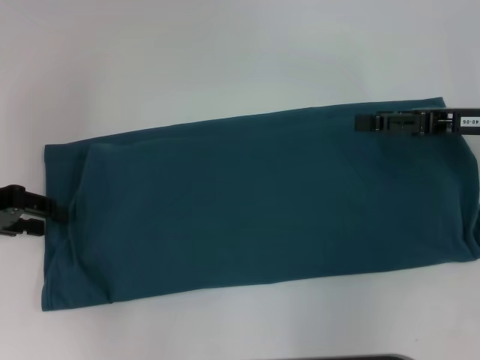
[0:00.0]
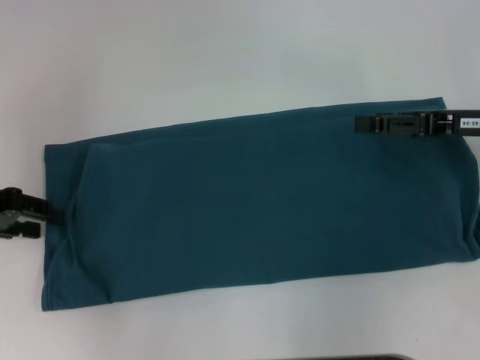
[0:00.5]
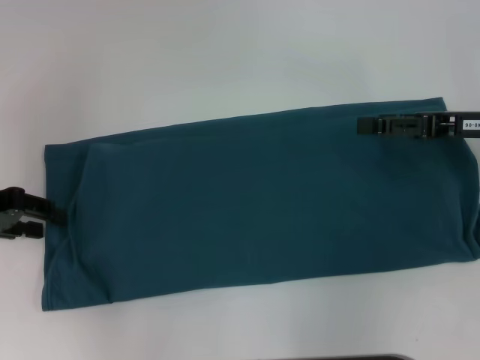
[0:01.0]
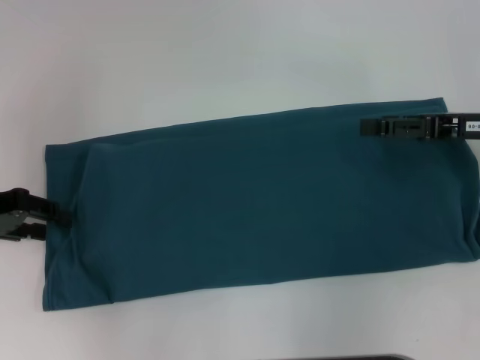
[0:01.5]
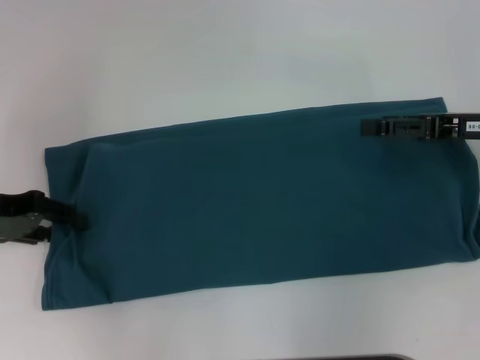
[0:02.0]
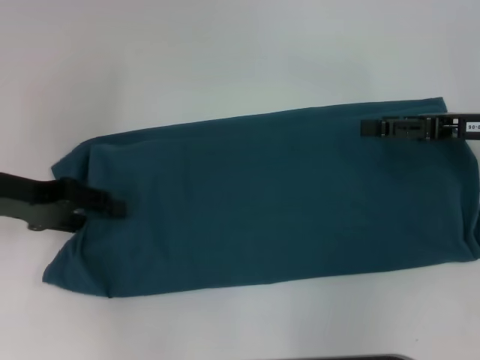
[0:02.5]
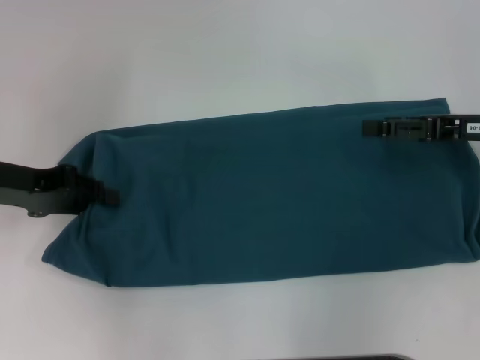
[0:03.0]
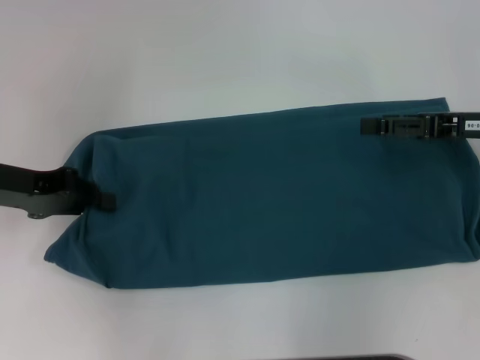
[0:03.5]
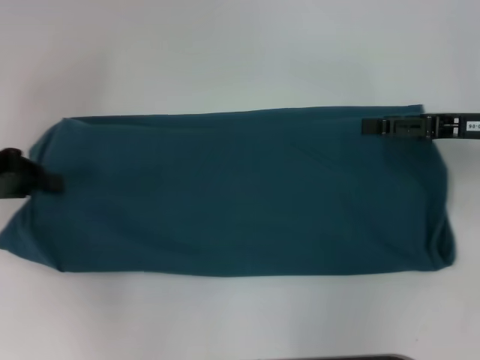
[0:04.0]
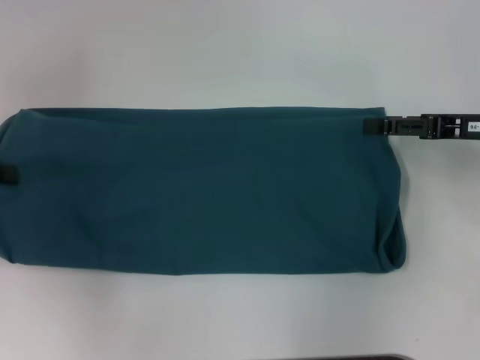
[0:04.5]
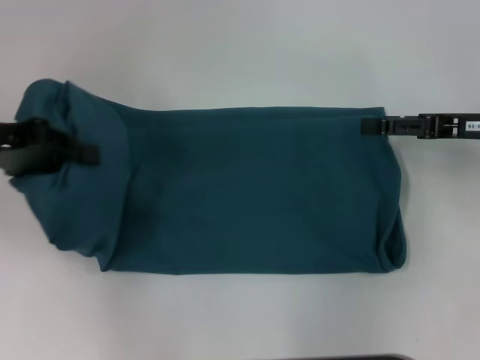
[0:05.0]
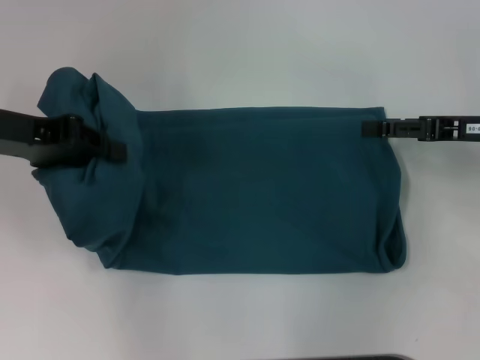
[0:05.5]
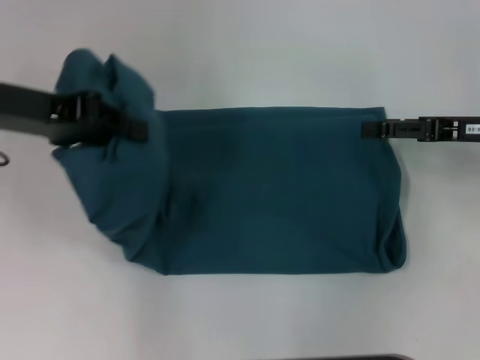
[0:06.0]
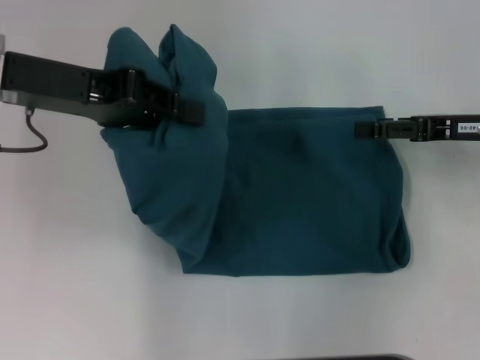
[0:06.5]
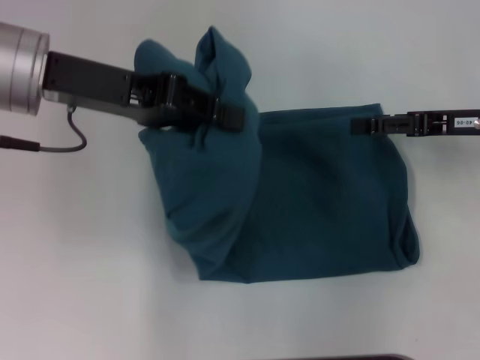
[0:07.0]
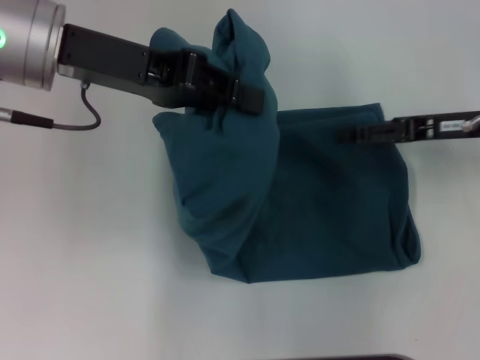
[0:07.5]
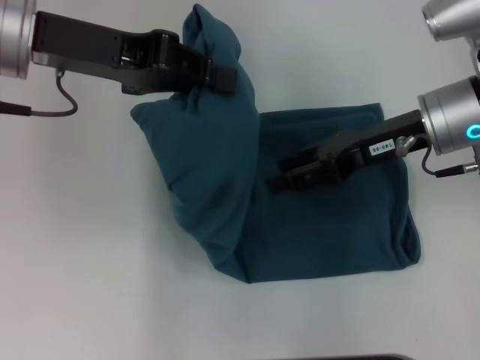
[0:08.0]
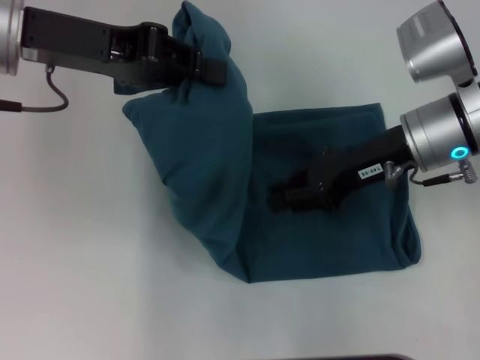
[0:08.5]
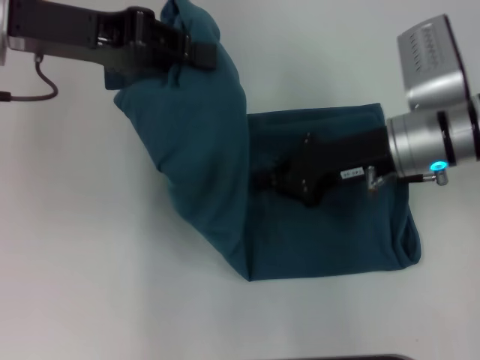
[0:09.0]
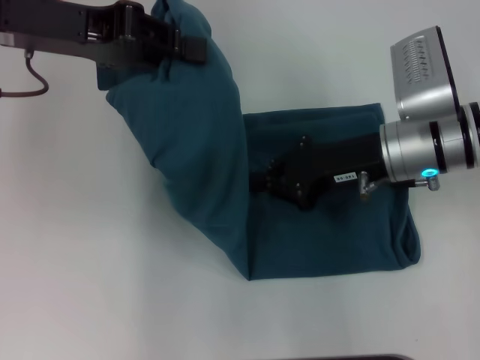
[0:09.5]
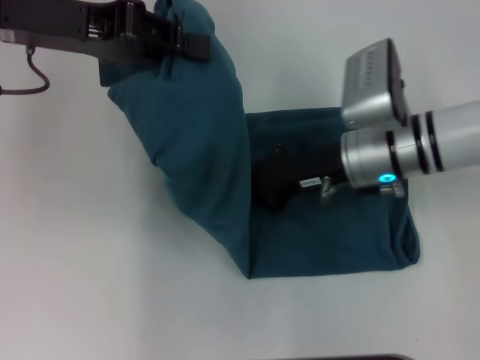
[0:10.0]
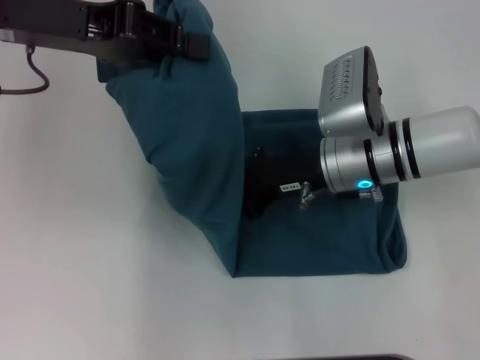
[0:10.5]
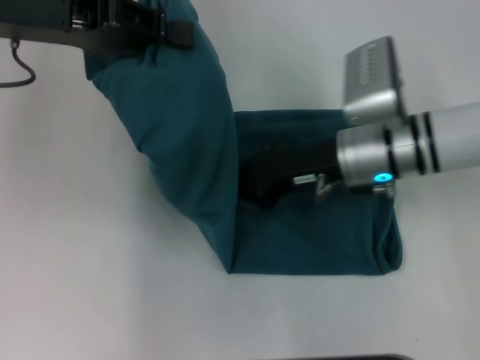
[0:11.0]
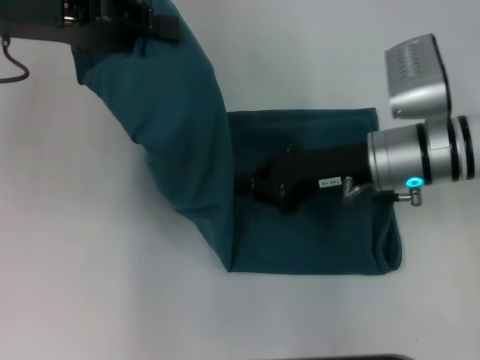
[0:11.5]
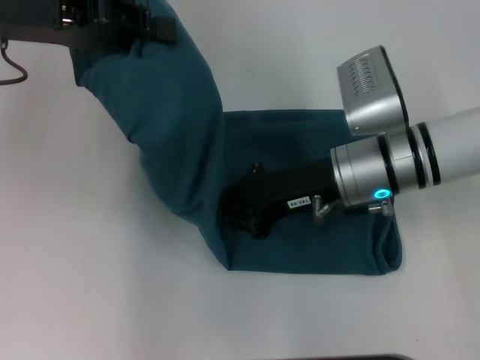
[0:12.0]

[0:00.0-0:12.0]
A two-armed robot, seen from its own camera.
0:00.0 to 0:02.0: The grippers stay close to where they were, moving slightly.
0:02.0 to 0:04.0: The left gripper closes.
0:04.0 to 0:06.0: The left gripper heads to the right and upward, covering some 10 cm.
0:06.0 to 0:08.0: The right gripper heads to the left, covering some 10 cm. The left gripper goes roughly 5 cm to the right.
0:08.0 to 0:10.0: The right gripper heads downward and to the left, covering some 10 cm, and closes its fingers.
0:10.0 to 0:12.0: The grippers stay close to where they were, moving slightly.

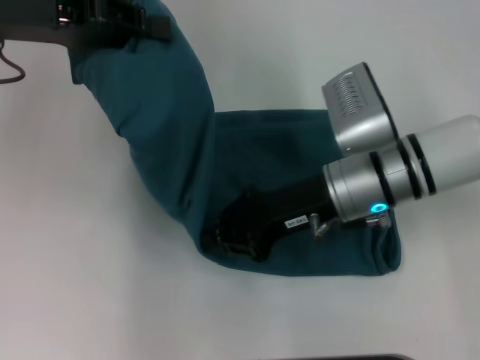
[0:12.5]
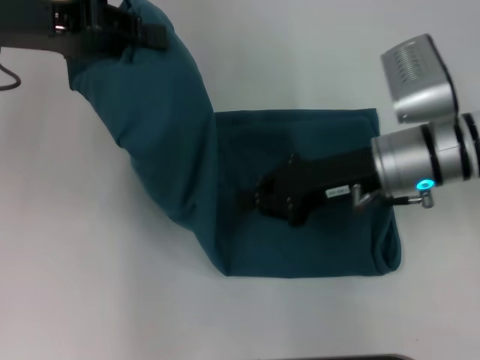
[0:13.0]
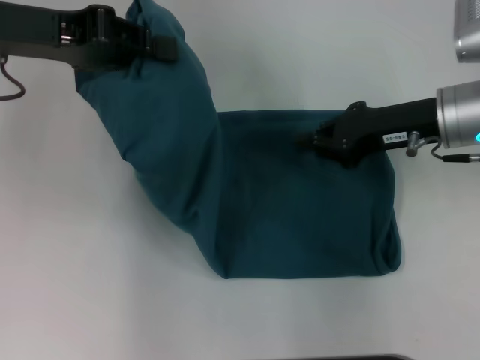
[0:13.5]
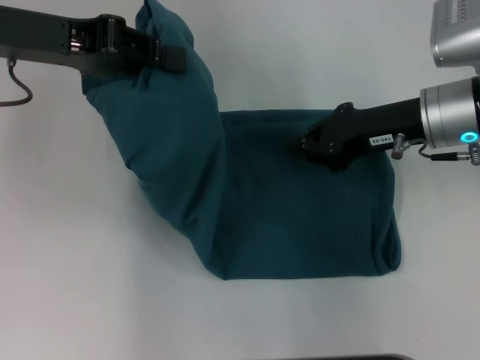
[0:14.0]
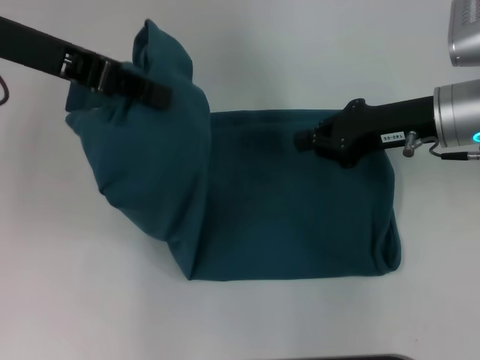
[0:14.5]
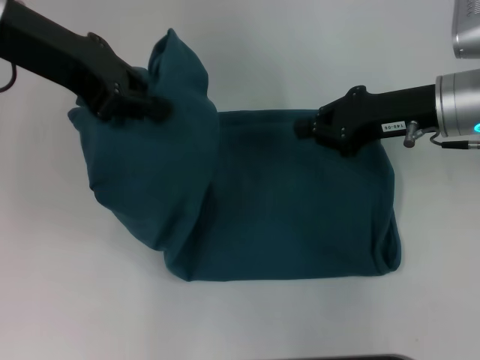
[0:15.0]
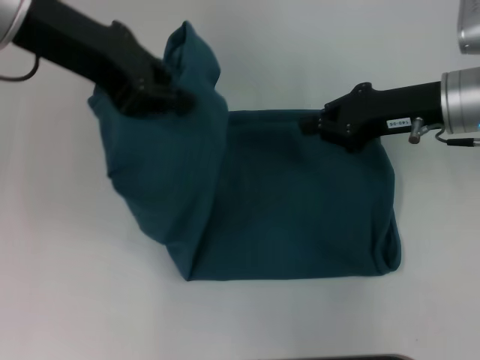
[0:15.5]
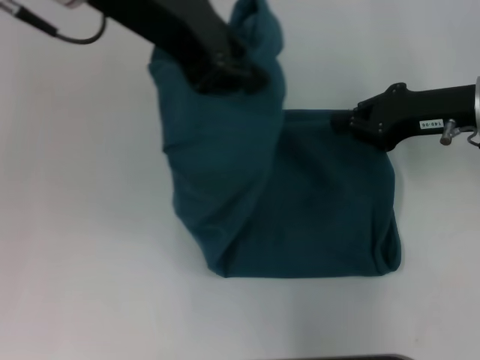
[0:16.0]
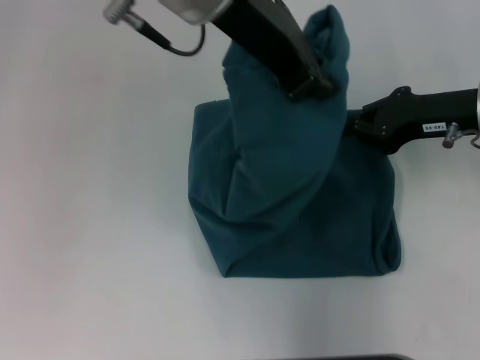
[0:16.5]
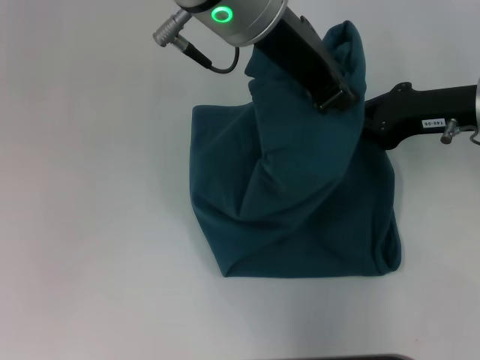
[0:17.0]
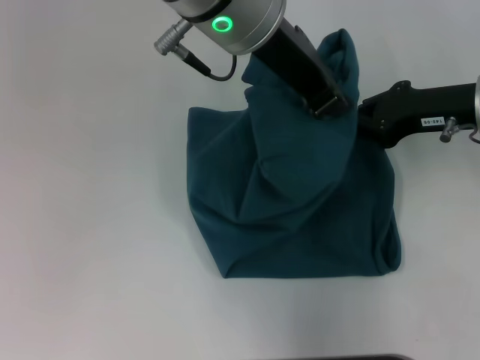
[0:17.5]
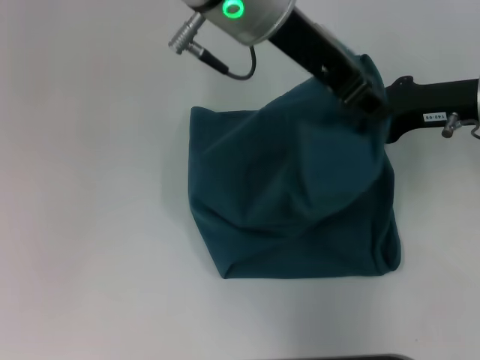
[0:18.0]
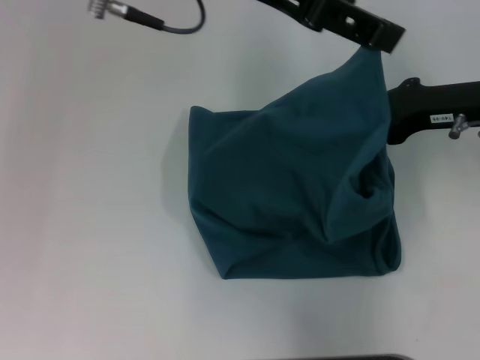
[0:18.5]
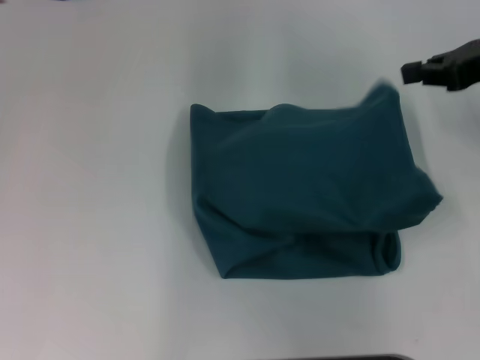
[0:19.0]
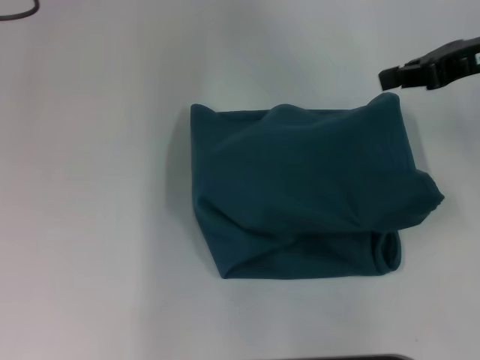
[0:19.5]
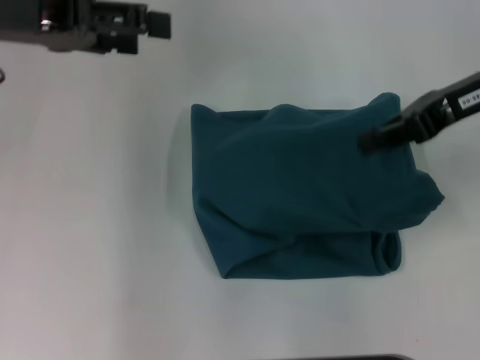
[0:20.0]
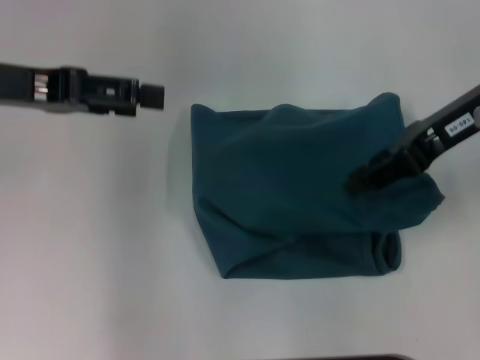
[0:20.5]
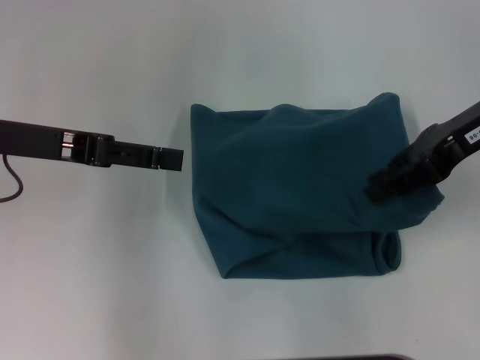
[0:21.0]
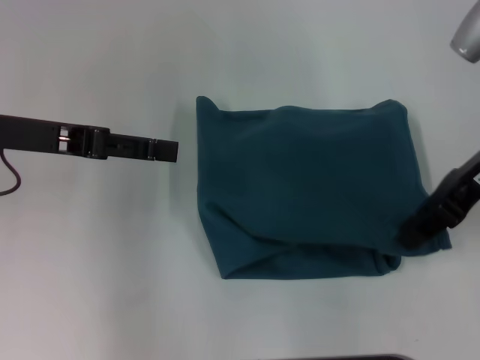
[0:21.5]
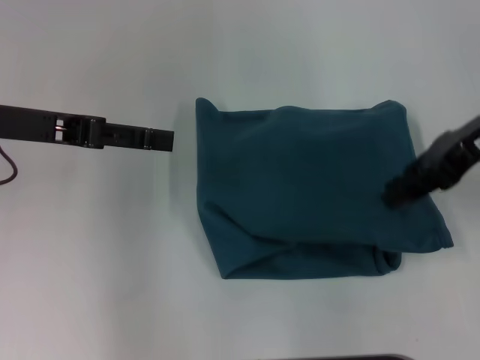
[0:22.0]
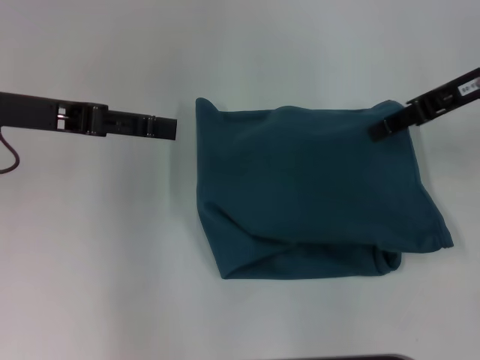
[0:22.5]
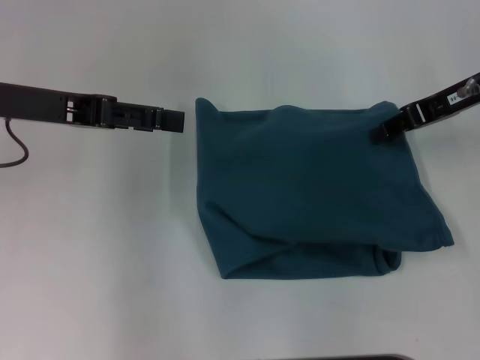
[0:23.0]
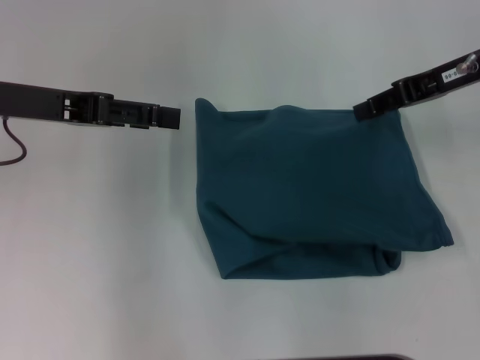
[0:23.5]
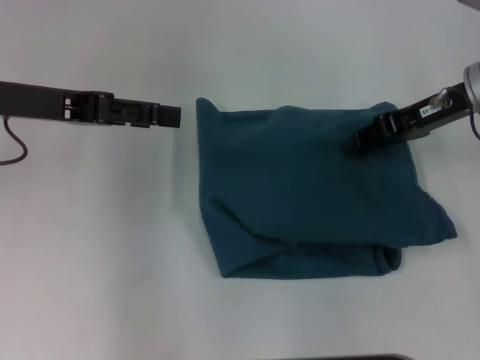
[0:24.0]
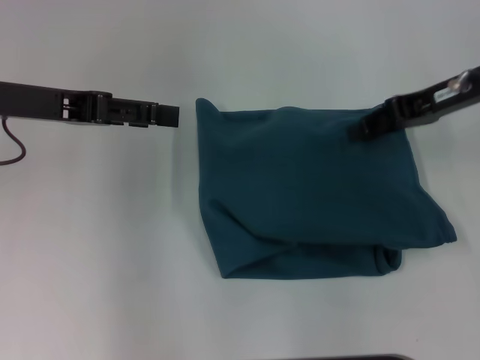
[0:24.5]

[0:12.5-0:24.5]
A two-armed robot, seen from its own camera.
Step, 0:13.0 to 0:19.0: Fold the clothes to the left.
0:12.5 to 0:14.5: The right gripper moves to the right, roughly 10 cm.
0:14.5 to 0:16.5: The left gripper shifts approximately 15 cm to the right.
0:16.5 to 0:18.5: The left gripper opens up.
0:18.5 to 0:20.5: The left gripper moves to the left and downward, roughly 20 cm. Meanwhile the right gripper travels upward by some 5 cm.
0:20.5 to 0:22.5: The grippers move only a little.
0:22.5 to 0:24.5: There are only small adjustments of the grippers.

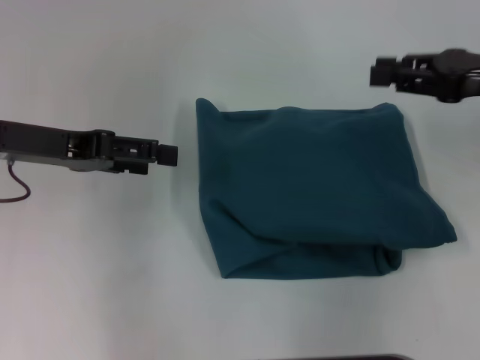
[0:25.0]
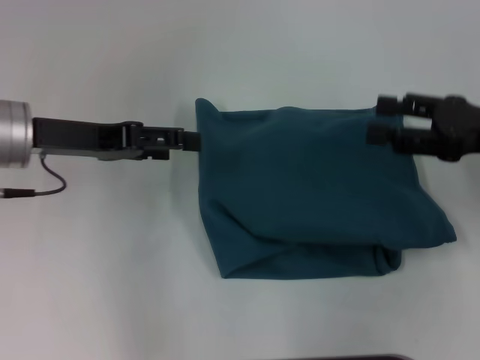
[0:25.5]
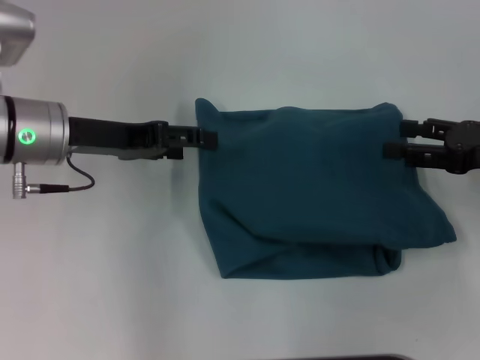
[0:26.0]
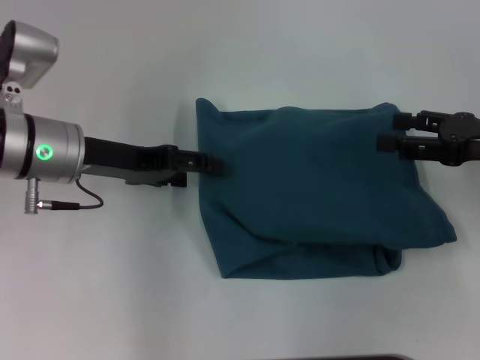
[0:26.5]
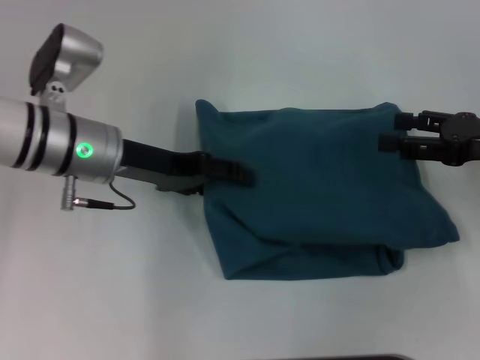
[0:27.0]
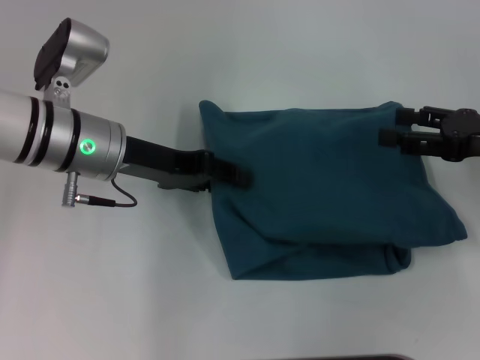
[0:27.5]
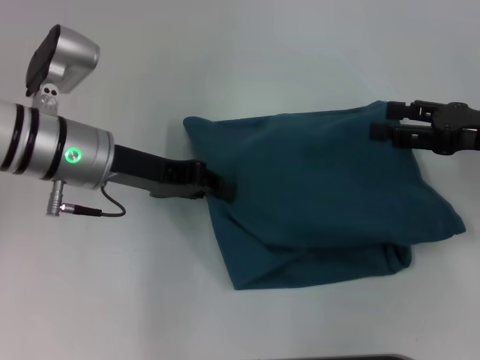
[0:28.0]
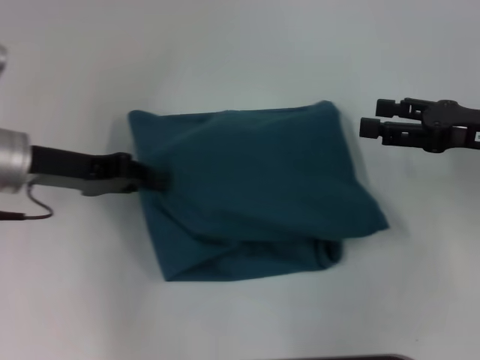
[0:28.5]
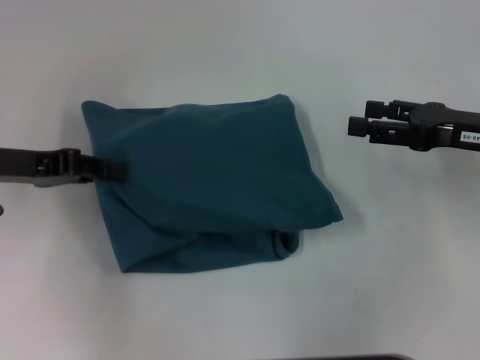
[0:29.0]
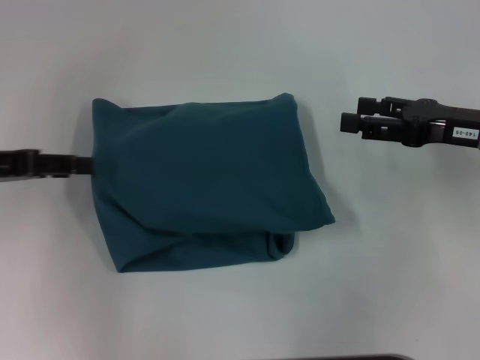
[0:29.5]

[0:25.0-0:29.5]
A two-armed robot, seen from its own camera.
0:25.0 to 0:27.0: The right gripper goes some 5 cm downward, and opens up, while the left gripper goes some 10 cm to the right and downward.
0:27.0 to 0:29.5: The left gripper moves to the left, about 15 cm, and closes.
